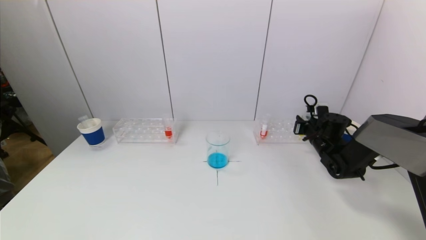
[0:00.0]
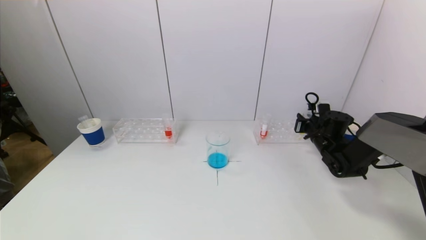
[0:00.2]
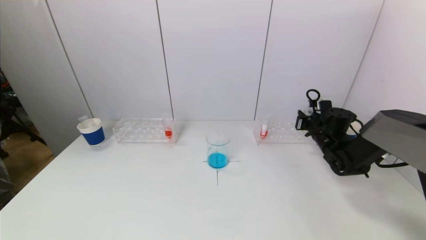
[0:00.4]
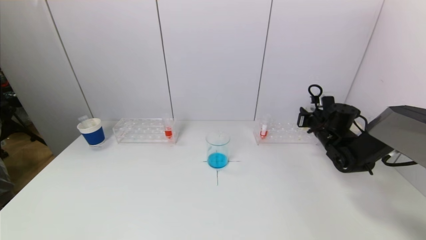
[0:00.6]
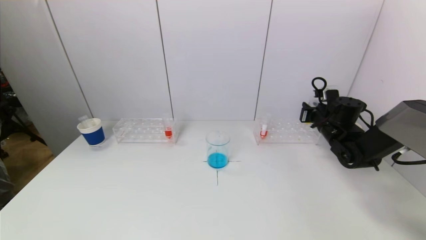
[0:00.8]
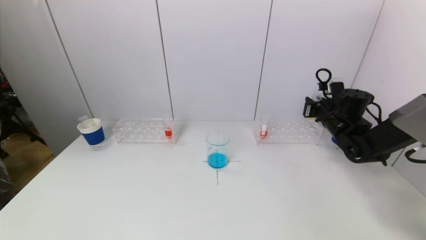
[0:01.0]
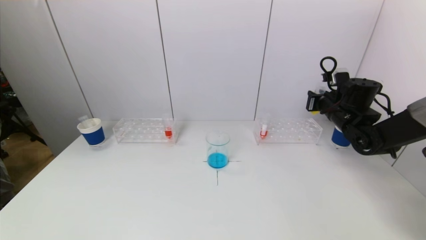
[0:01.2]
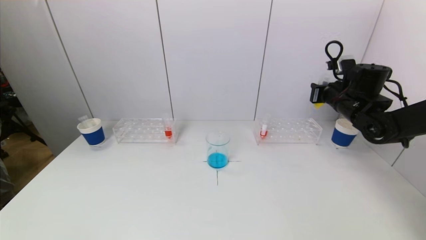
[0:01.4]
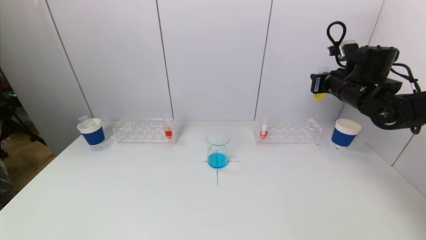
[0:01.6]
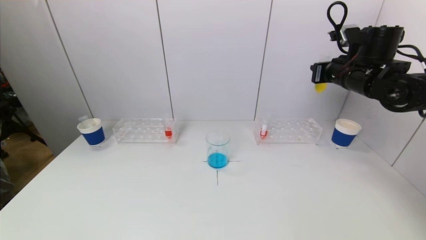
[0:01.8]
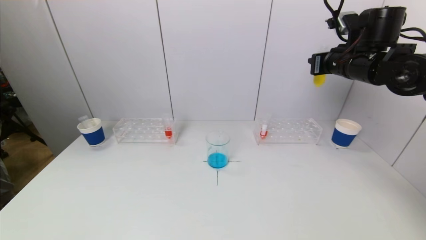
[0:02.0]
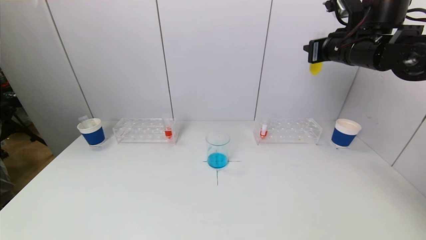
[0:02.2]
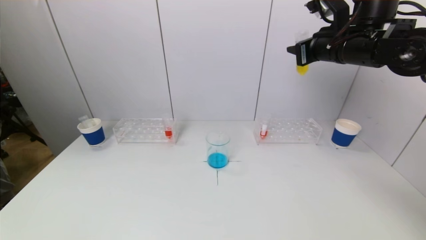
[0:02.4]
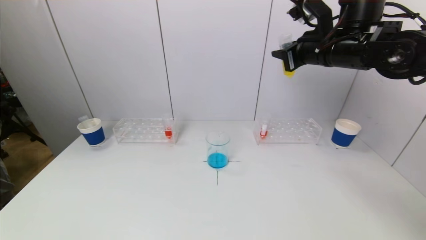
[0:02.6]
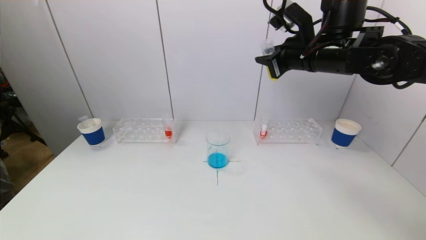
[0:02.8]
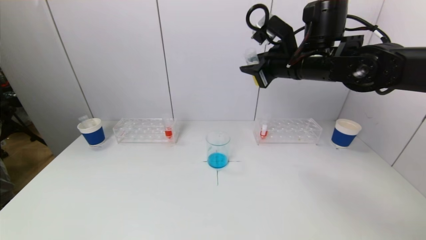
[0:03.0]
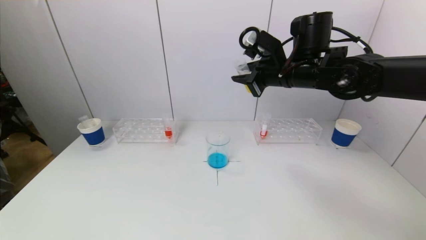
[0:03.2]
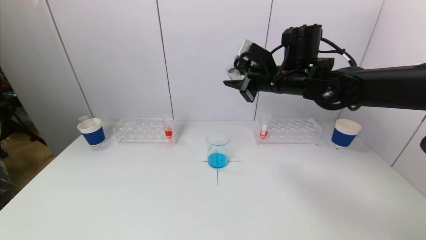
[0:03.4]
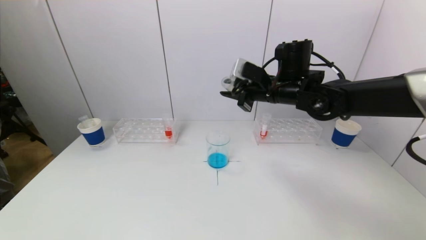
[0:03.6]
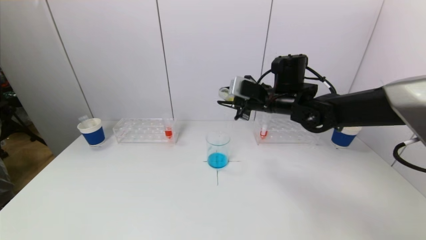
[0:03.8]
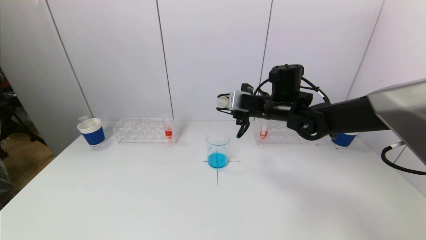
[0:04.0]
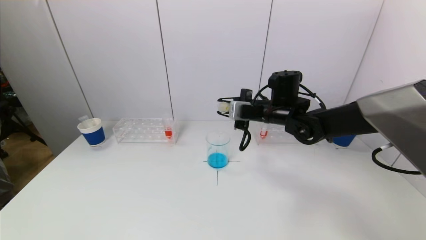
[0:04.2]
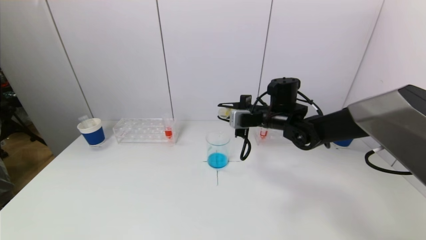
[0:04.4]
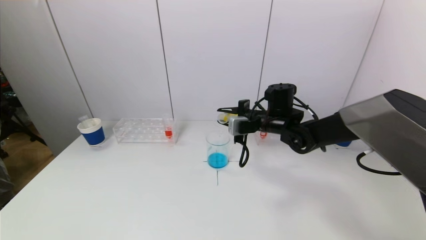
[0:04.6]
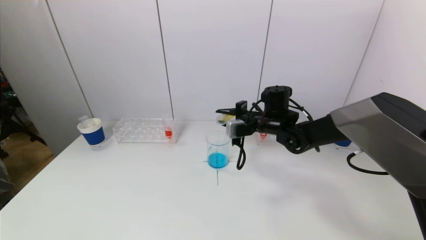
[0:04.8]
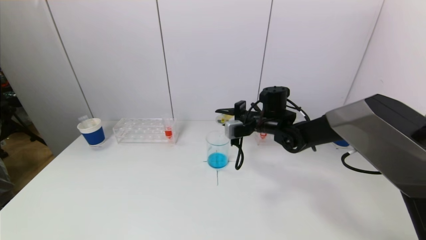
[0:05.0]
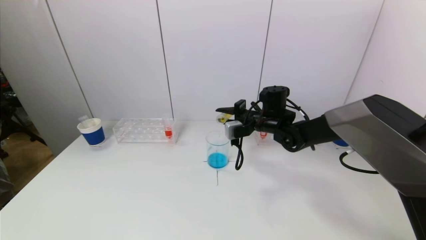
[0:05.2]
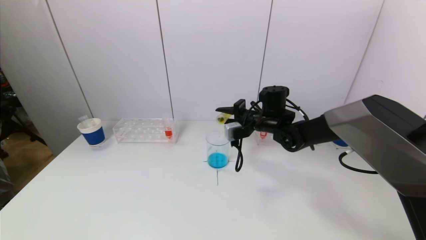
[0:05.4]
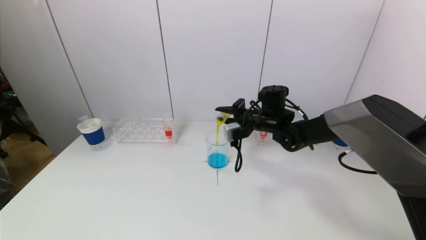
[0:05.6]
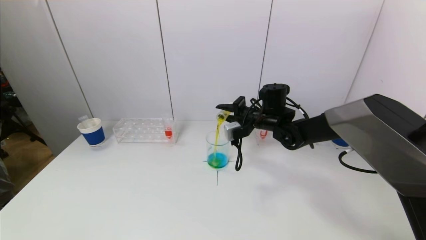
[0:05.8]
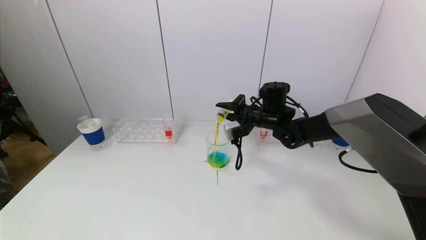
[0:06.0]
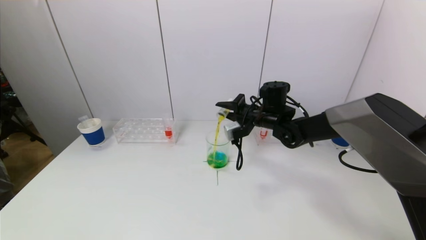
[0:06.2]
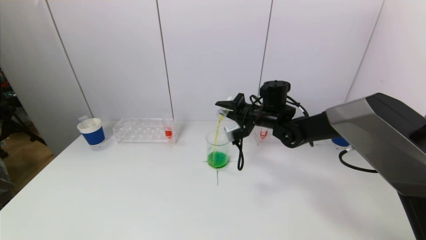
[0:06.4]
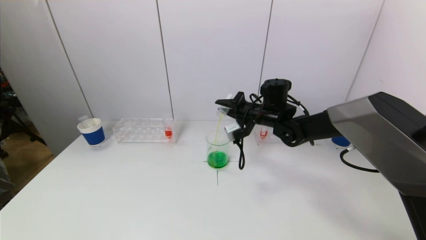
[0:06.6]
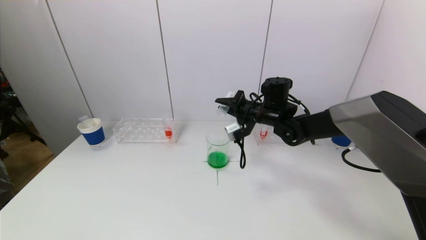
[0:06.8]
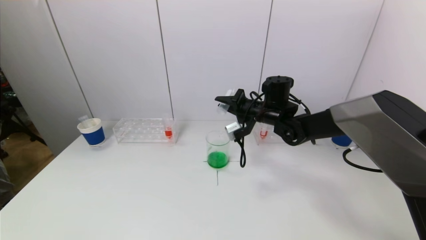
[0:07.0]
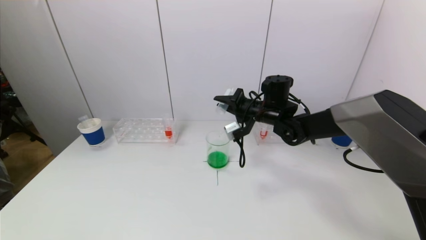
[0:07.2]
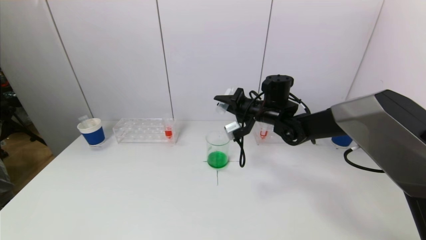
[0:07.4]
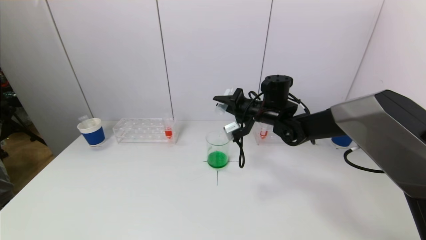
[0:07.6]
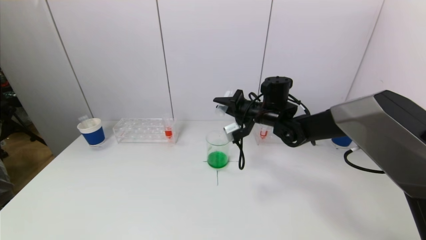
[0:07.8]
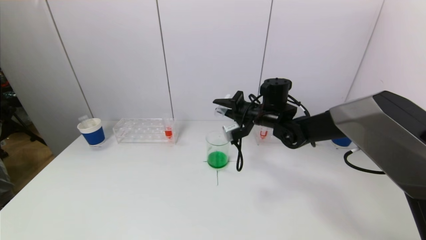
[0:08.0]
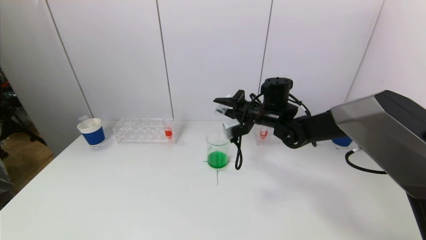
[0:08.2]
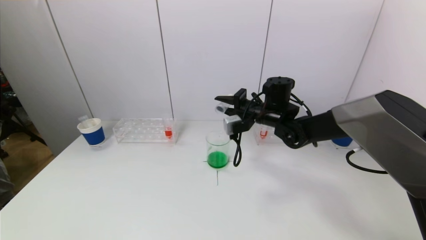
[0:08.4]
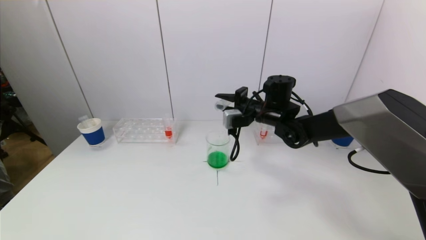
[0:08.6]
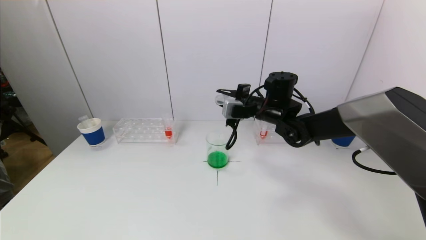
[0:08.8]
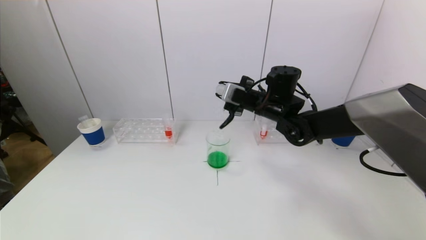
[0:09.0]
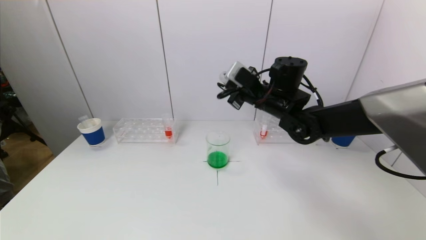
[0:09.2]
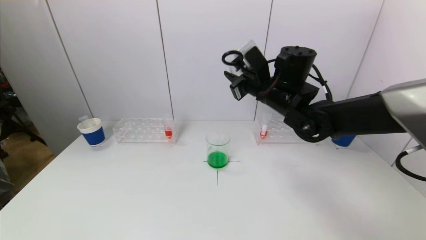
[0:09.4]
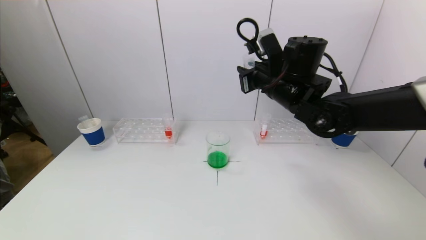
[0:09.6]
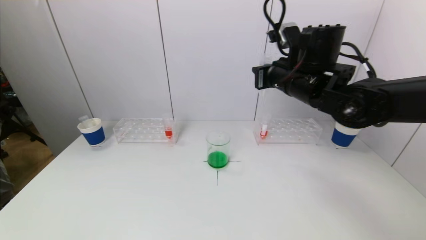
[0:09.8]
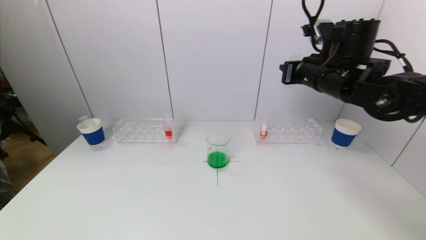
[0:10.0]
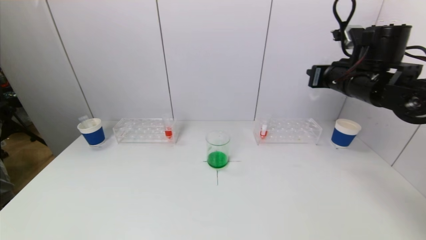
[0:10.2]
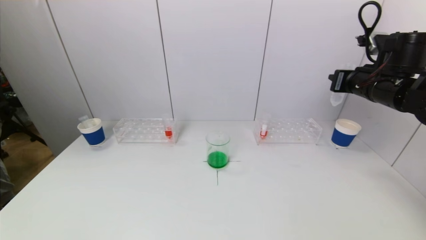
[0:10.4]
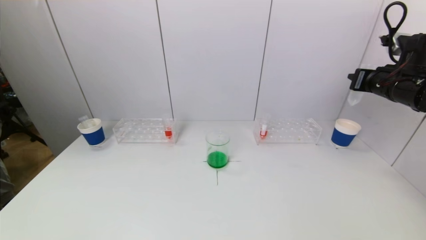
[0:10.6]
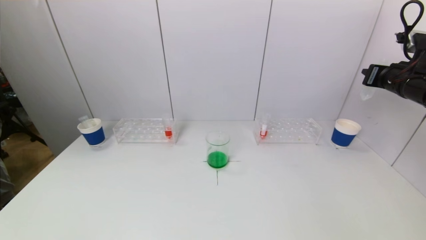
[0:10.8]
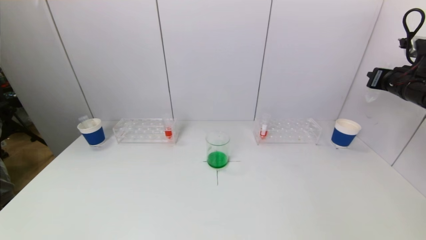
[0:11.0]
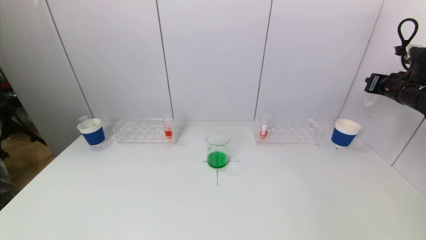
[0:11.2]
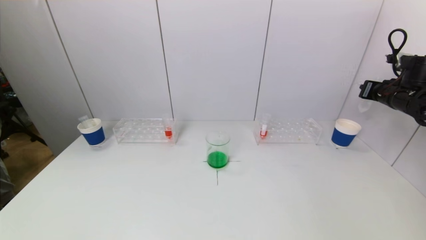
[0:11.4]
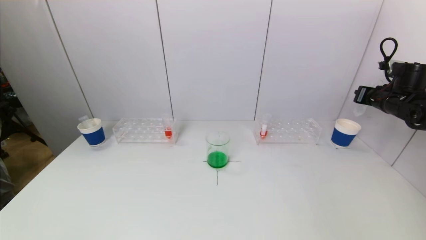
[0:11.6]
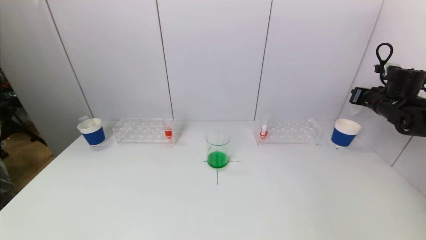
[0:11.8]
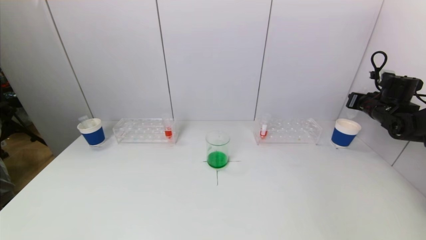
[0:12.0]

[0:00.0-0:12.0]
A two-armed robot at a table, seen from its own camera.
Task of the whole recording: pick up a test tube with pigment on left test tube rack and a test tube with pigment on right test tube rack by grippers and pour them into the beaker.
Step, 0:00.0 to 0:07.4: Pour the yellow reagent into the graduated cylinder with the right gripper.
0:00.0 to 0:01.6: The right gripper moves upward, approximately 20 cm.
0:01.6 to 0:03.0: The right gripper heads to the left and upward, covering some 15 cm.
0:03.0 to 0:04.4: The right gripper travels downward by about 15 cm.
0:06.0 to 0:07.6: The grippers make only small movements.
0:09.0 to 0:10.4: The right gripper goes some 20 cm to the right.
0:10.4 to 0:12.0: The right gripper moves to the right, downward and forward, some 20 cm.

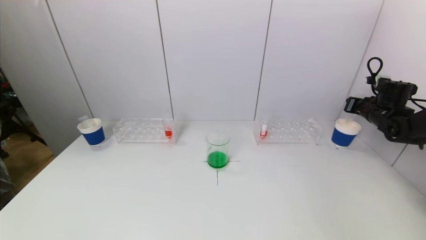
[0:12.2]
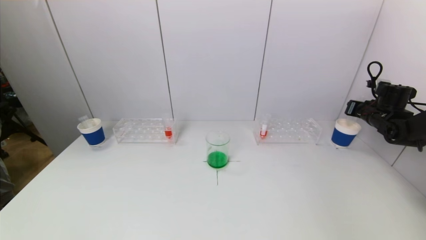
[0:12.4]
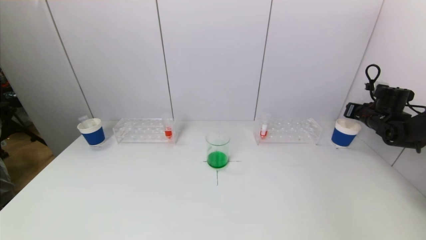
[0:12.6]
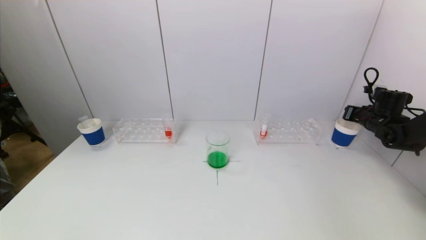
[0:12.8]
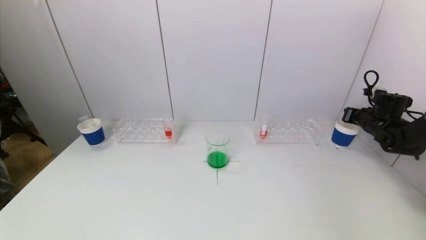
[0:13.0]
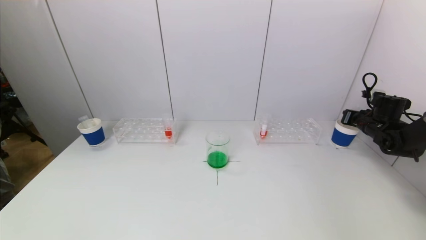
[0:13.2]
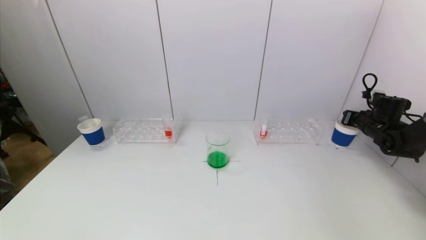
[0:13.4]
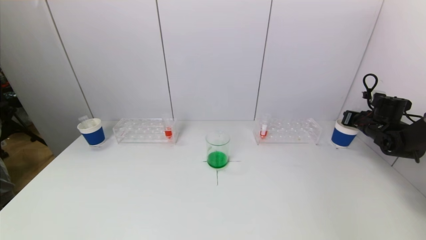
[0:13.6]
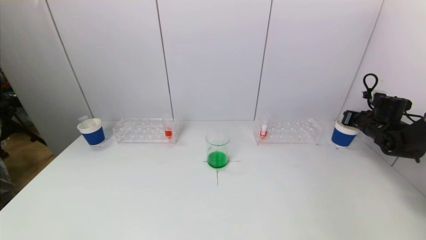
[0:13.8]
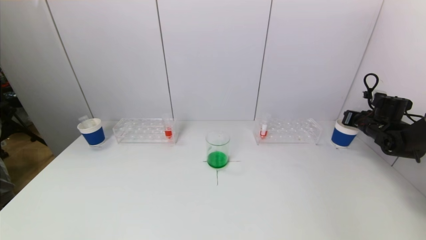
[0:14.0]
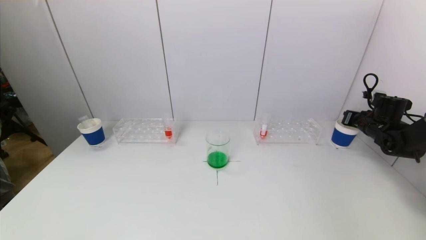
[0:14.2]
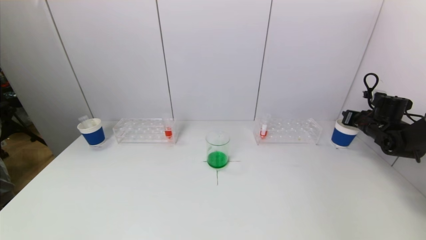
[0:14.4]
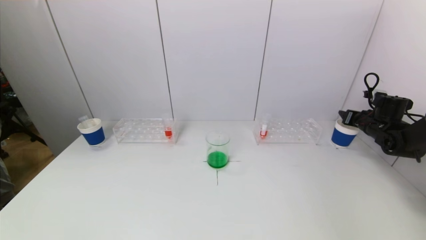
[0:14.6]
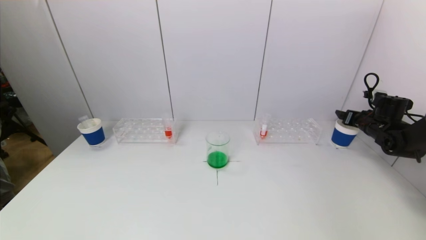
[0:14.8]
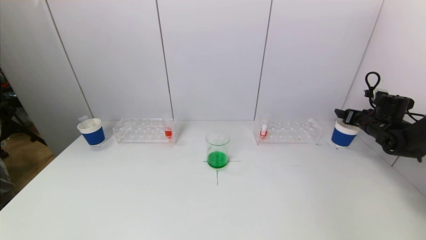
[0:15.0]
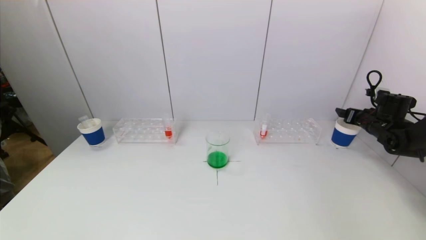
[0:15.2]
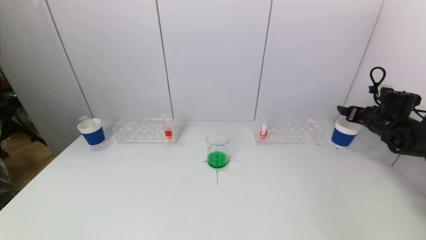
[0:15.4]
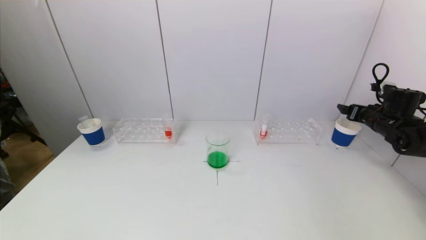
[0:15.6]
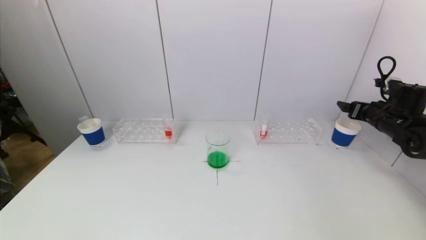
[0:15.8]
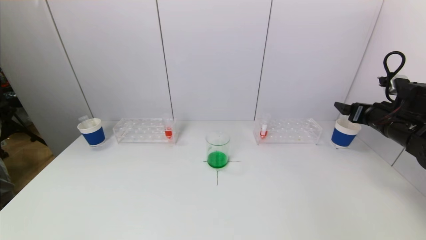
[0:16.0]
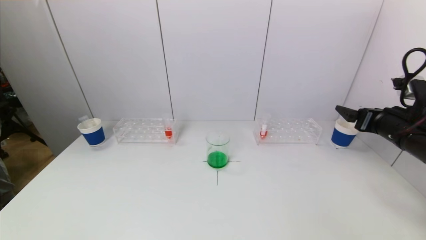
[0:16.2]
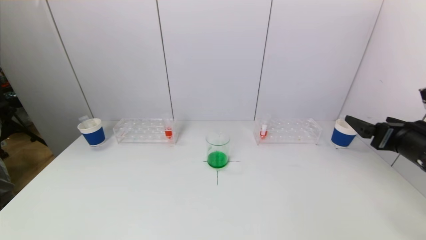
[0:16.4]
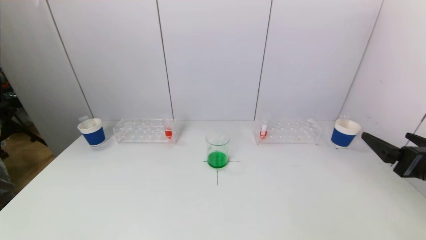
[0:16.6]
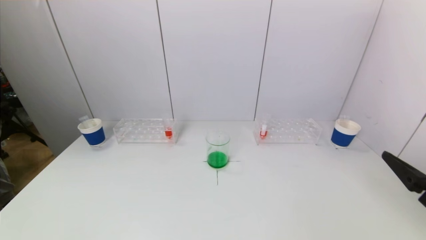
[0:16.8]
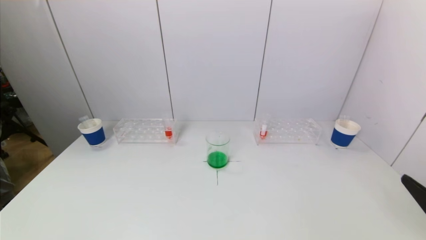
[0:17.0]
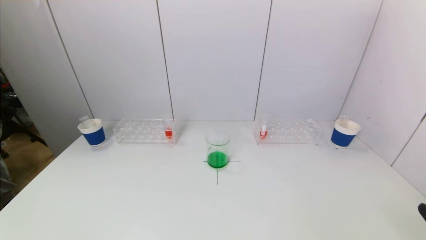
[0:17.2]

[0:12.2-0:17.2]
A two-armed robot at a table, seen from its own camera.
Task of the whole recording: pick up a test tube with pigment on left test tube rack and a test tube with pigment on right test tube rack by grippers and pour them into the beaker.
Step, 0:12.2 to 0:15.0: Place the test tube into the paper cup with the right gripper.
0:12.2 to 0:13.8: The grippers make only small movements.
0:13.8 to 0:15.6: The right gripper opens up.
0:15.6 to 0:17.2: The right gripper shifts about 40 cm backward.
